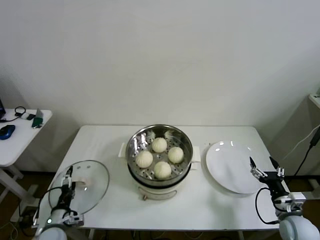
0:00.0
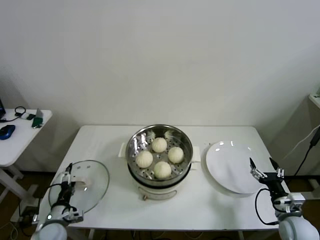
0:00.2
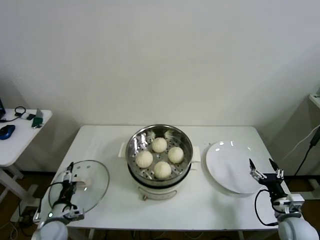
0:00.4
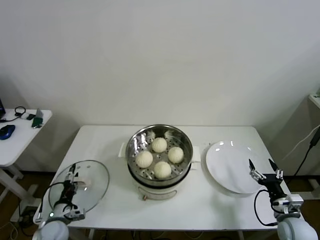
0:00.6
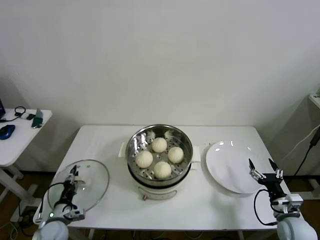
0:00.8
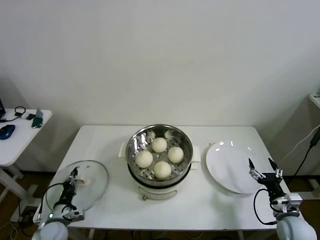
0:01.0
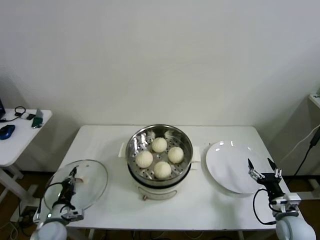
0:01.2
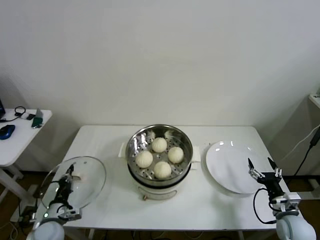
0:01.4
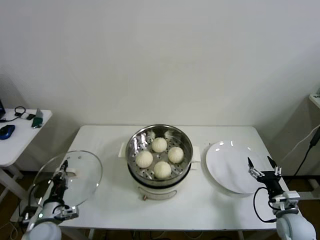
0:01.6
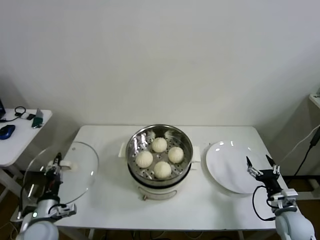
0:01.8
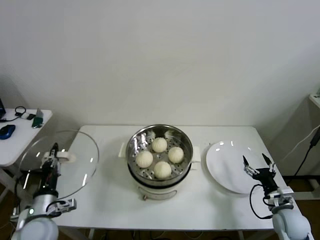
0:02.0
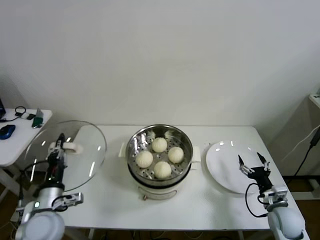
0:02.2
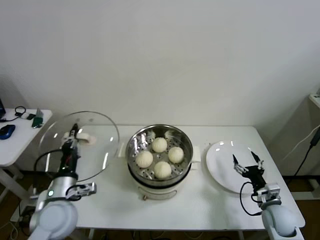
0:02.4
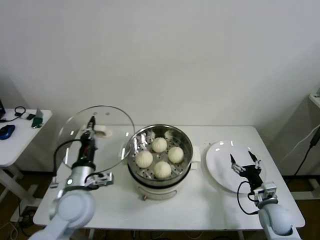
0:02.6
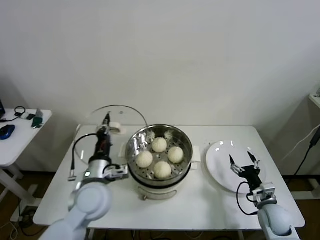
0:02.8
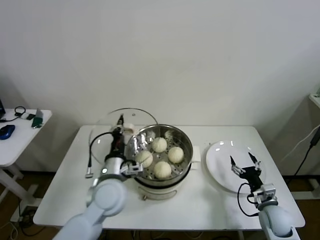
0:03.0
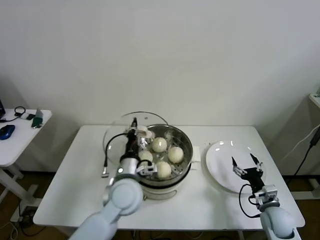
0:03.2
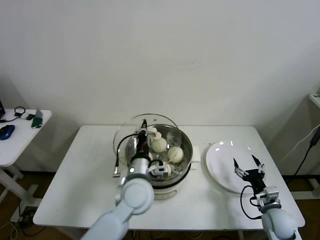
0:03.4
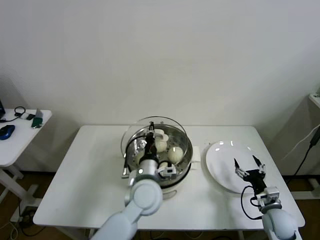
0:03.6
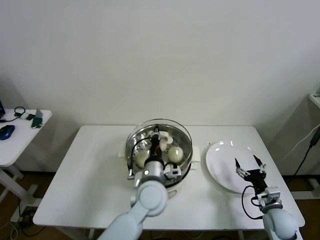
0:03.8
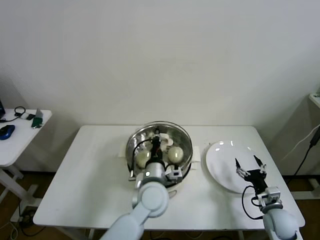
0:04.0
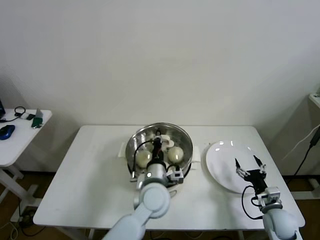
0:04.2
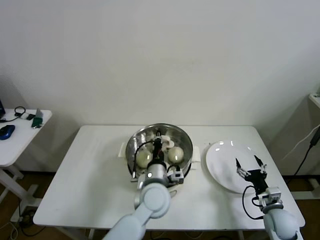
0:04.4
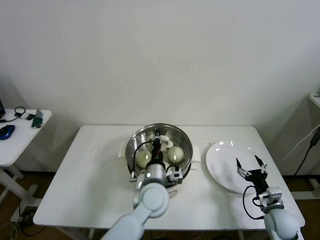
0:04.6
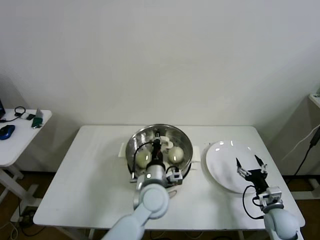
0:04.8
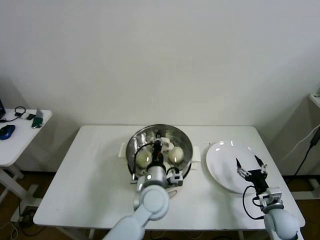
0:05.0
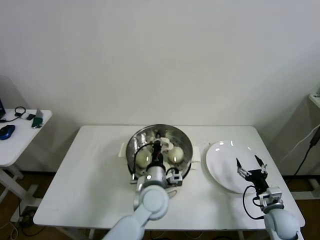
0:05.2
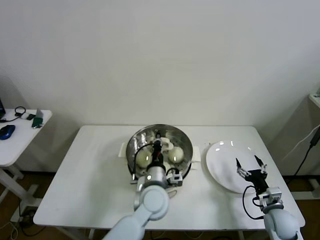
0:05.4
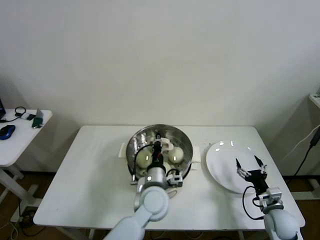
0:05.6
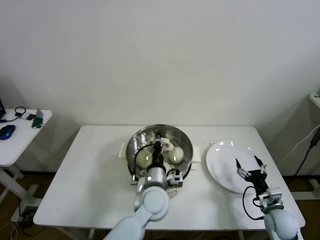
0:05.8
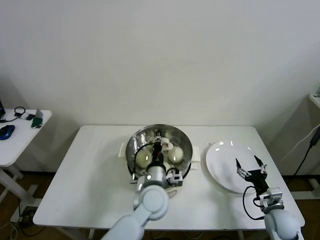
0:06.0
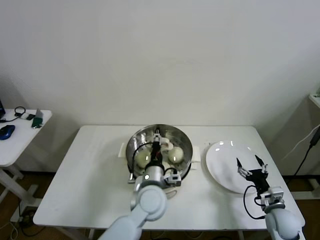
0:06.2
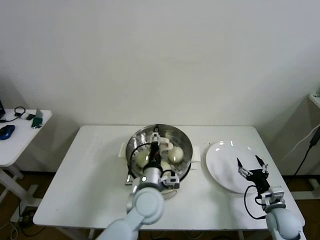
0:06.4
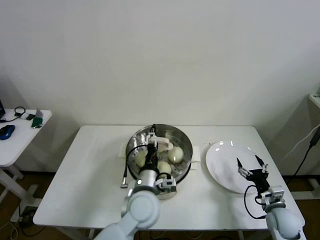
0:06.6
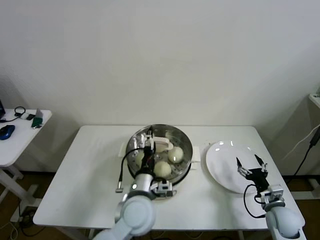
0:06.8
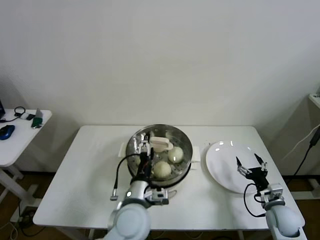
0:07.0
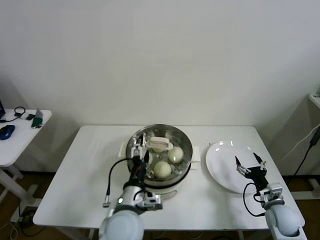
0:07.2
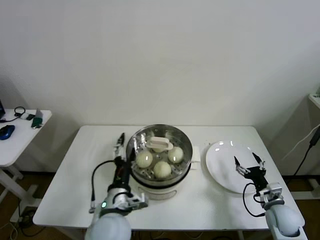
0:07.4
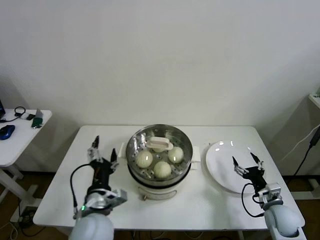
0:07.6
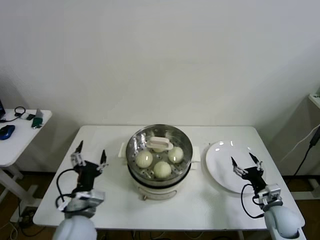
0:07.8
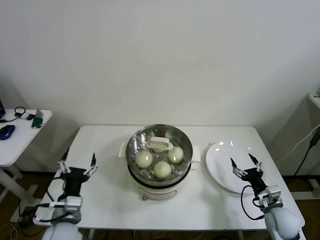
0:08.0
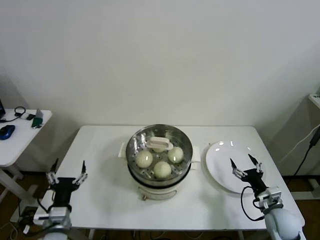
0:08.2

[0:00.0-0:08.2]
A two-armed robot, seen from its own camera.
Step, 0:01.4 to 0:06.0: Place the pot lid on the steamer with left gripper.
0:00.0 to 0:01.6: The left gripper closes.
0:01.6 to 0:03.2: The left gripper is displaced to the right and upward by approximately 30 cm, while the right gripper changes place by approximately 5 cm.
0:03.2 to 0:05.0: The left gripper goes approximately 10 cm to the right.
0:05.0 to 0:06.6: The left gripper opens its fingers.
0:06.6 to 0:08.2: The left gripper heads to the left, covering approximately 25 cm.

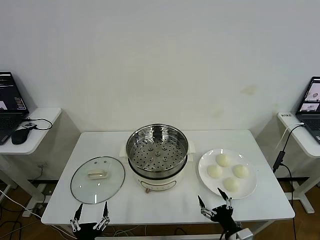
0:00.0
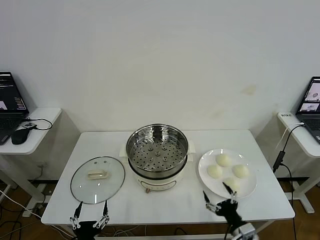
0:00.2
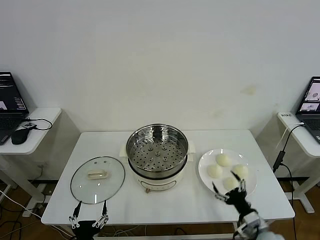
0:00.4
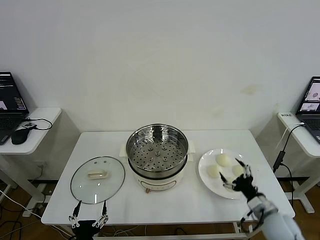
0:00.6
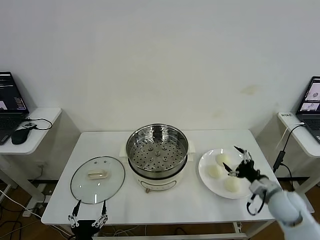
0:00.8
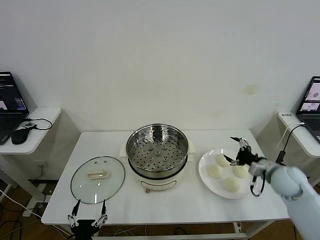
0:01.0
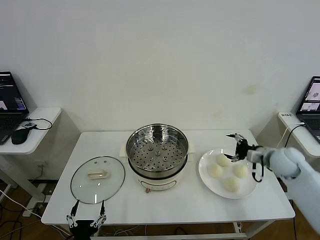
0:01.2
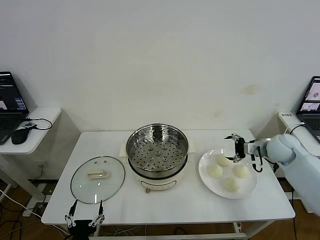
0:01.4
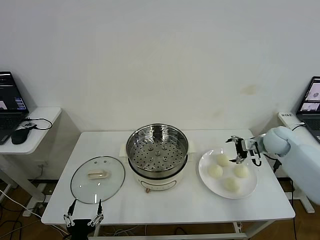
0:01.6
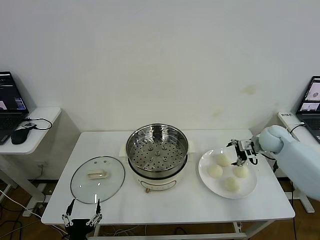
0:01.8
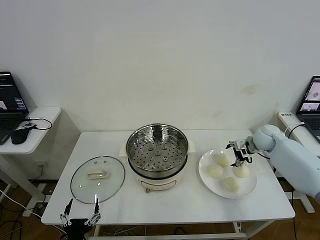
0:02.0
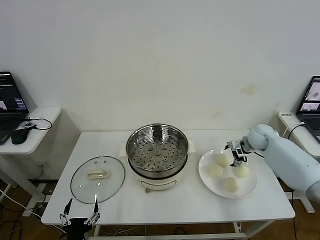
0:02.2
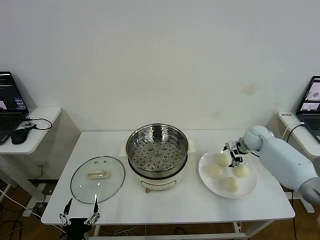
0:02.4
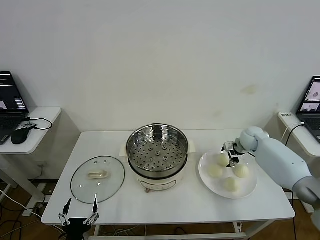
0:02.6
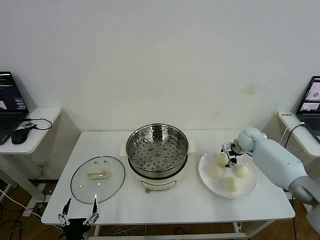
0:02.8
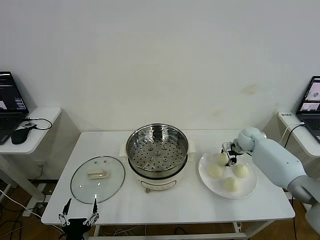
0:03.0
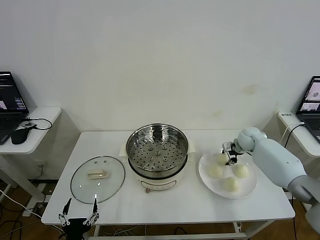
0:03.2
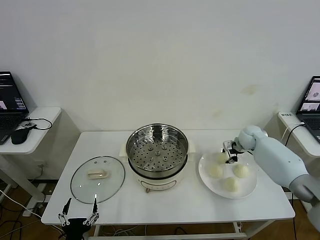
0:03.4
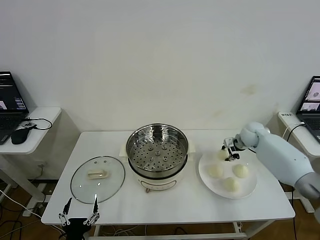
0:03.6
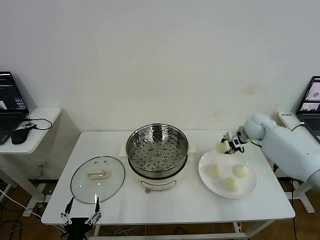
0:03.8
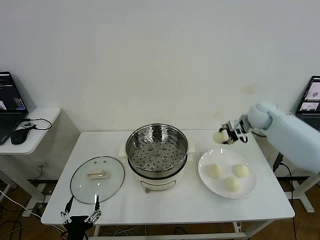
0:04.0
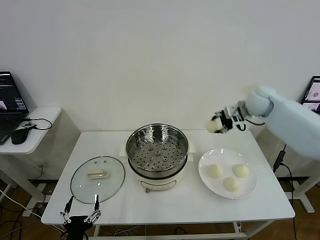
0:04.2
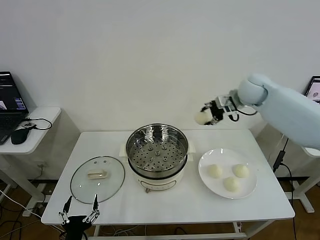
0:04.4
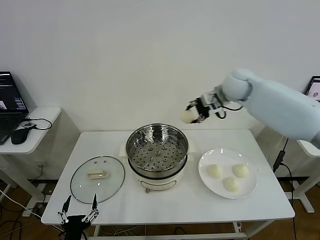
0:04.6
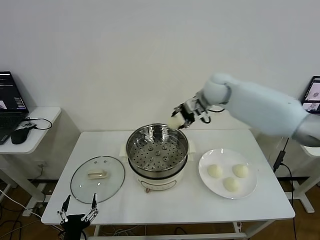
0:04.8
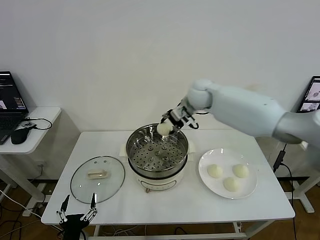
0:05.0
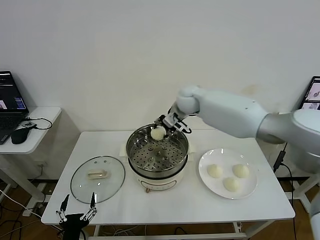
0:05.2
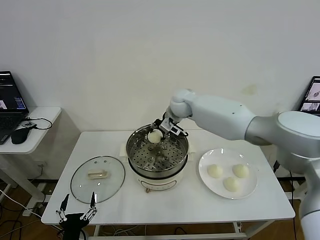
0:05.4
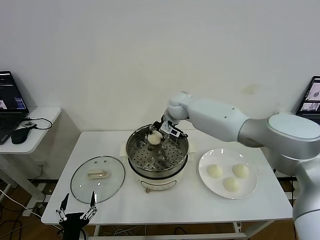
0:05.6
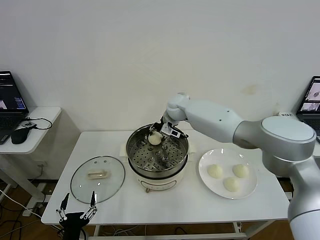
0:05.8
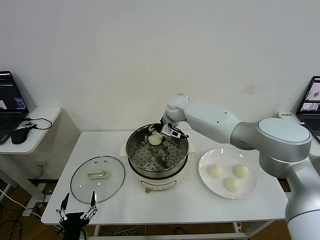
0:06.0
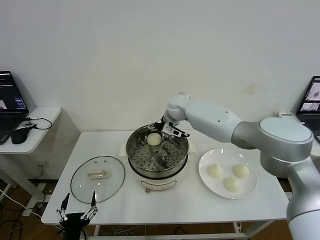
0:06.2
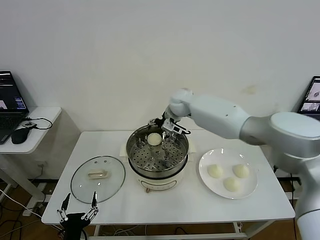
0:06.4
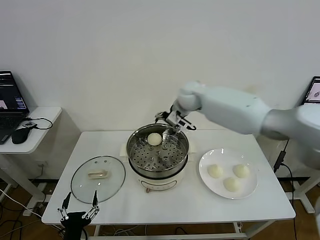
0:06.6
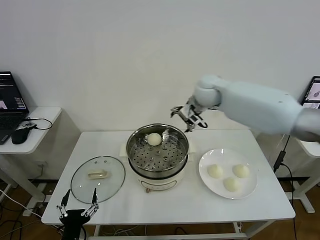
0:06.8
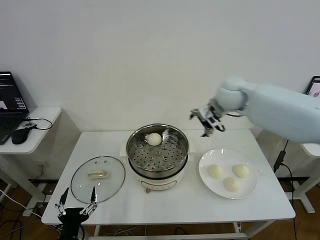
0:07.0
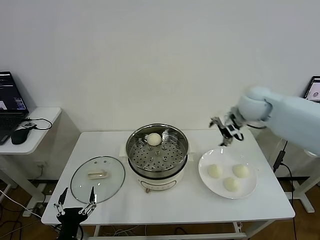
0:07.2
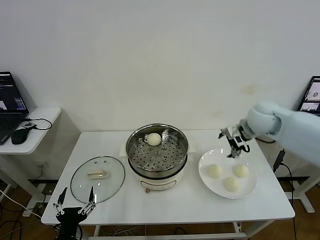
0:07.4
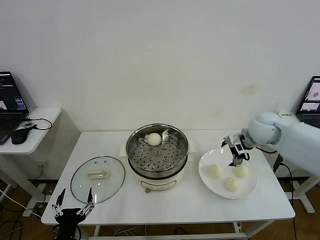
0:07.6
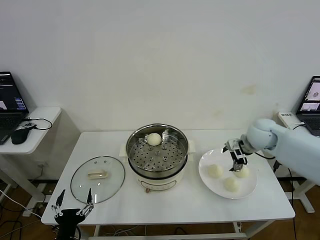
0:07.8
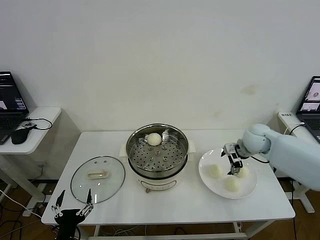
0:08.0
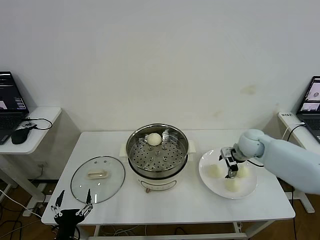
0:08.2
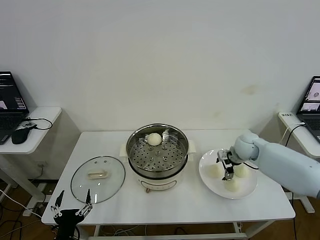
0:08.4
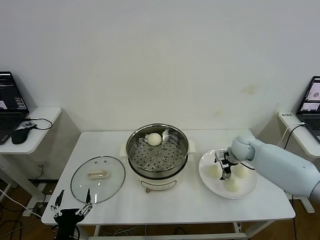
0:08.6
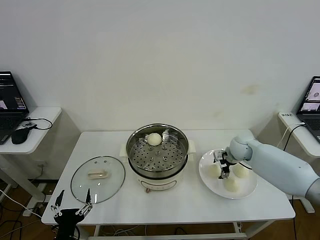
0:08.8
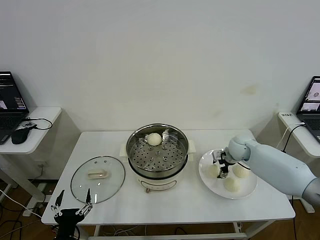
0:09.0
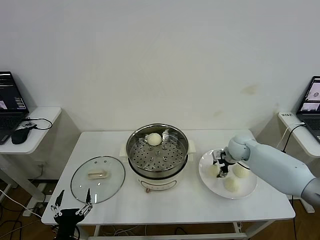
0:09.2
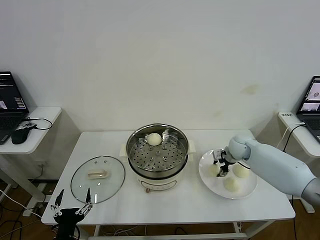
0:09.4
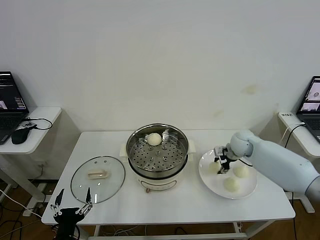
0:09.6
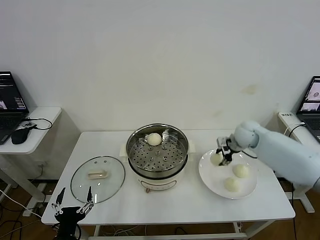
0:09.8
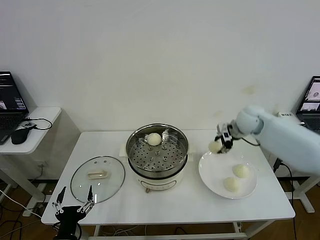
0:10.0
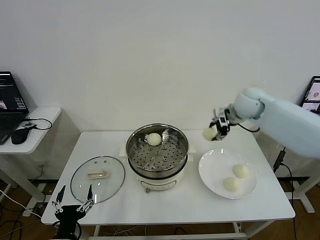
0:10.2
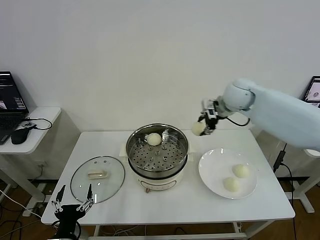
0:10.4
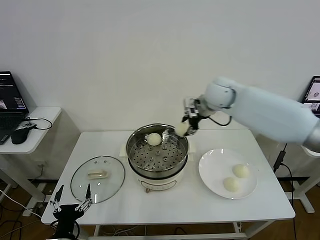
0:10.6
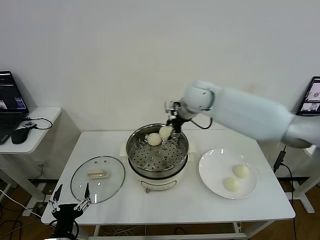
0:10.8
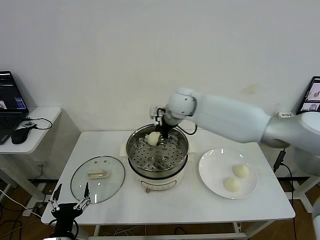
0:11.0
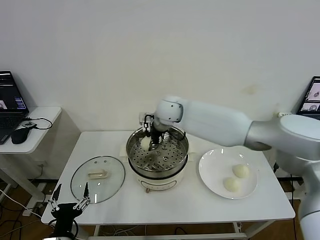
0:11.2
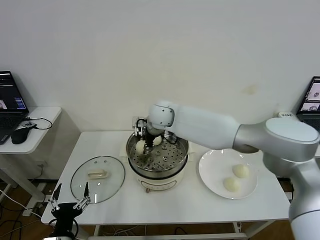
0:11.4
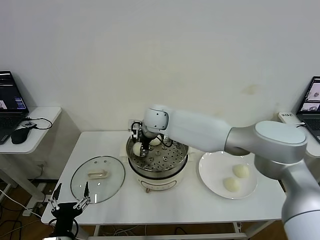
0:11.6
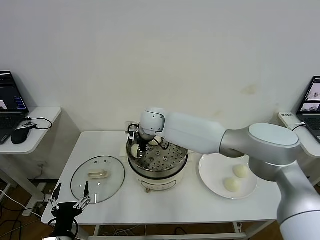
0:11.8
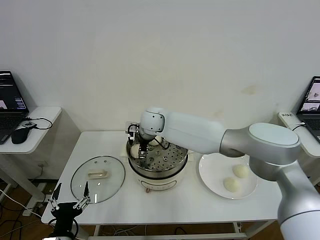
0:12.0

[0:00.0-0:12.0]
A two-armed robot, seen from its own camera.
Step, 0:00.0 to 0:03.2: Grasp the baozi in the plate with right gripper.
Step, 0:03.4 to 0:06.0: Place the baozi on the steamer with right gripper.
Step, 0:06.2 to 0:09.4: Grasp the baozi in the plate with right gripper.
Step, 0:09.6 to 0:12.0: Place the baozi on the steamer with right gripper.
0:01.6 to 0:03.0: The right gripper goes approximately 10 cm downward and forward, and closes its fingers.
0:03.0 to 0:04.4: The right gripper is displaced upward and to the left by about 25 cm.
0:04.4 to 0:06.0: The right gripper goes about 25 cm to the left and downward, and opens.
0:06.0 to 0:07.6: The right gripper goes about 30 cm to the right and backward.
0:07.6 to 0:09.0: The right gripper travels downward by some 15 cm, and closes.
0:09.0 to 0:10.4: The right gripper shifts approximately 25 cm upward and to the left.
0:10.4 to 0:12.0: The right gripper goes about 25 cm to the left and downward, and opens its fingers.

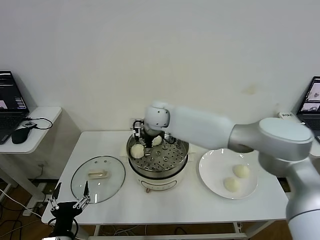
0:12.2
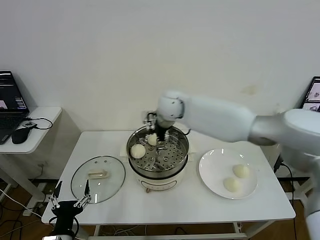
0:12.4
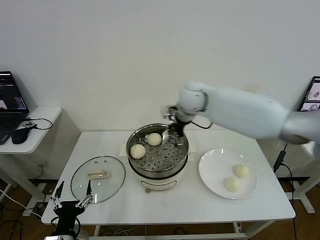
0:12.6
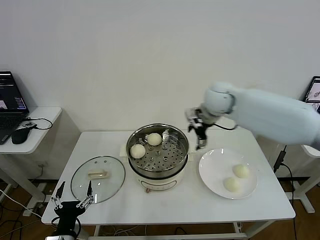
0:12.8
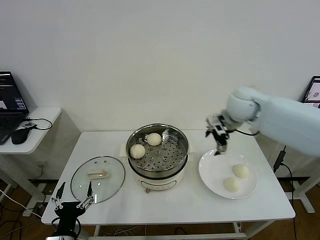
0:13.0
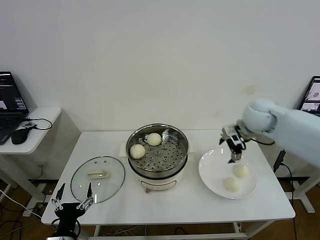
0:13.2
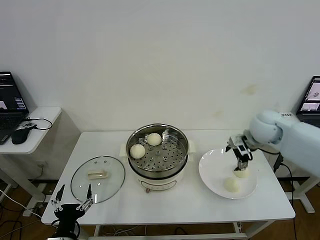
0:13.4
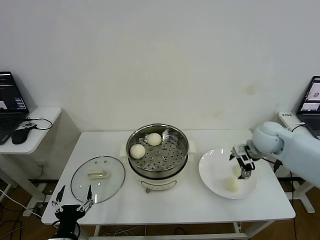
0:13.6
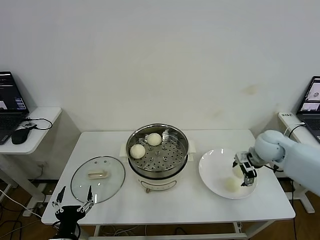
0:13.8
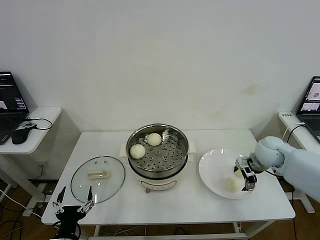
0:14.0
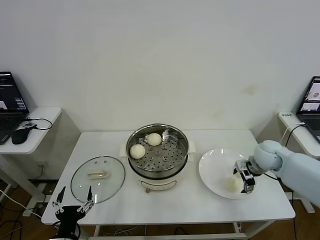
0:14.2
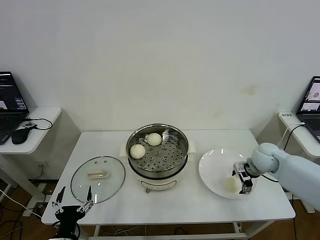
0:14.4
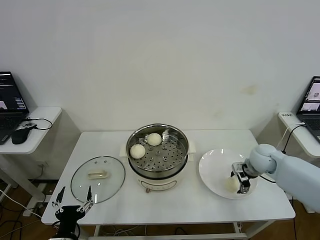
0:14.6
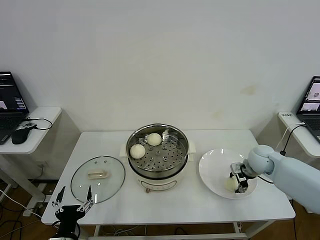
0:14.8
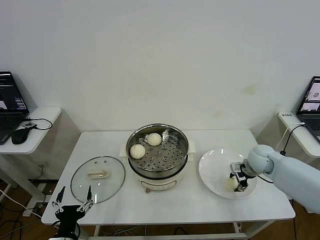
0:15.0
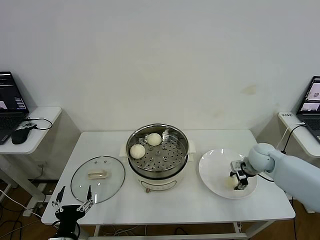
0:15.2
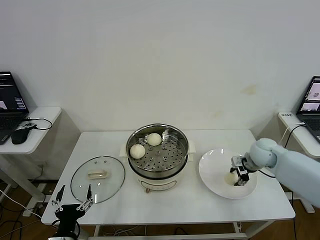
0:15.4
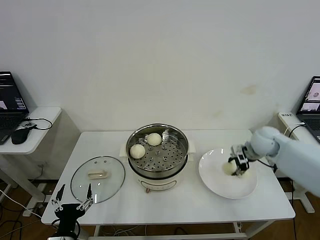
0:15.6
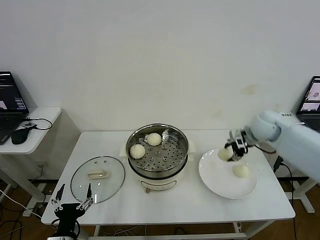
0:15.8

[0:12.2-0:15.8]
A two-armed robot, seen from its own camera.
Step, 0:12.2 to 0:15.0: Grasp the baozi in the plate with right gripper.
0:12.2 to 0:14.0: The right gripper travels to the right by about 35 cm.
0:14.0 to 0:15.8: The right gripper travels upward and forward by roughly 10 cm, and closes its fingers.
